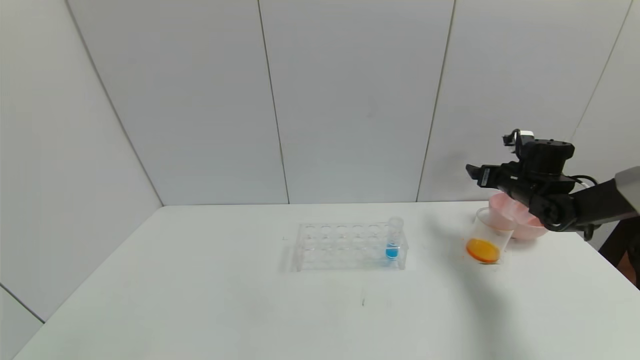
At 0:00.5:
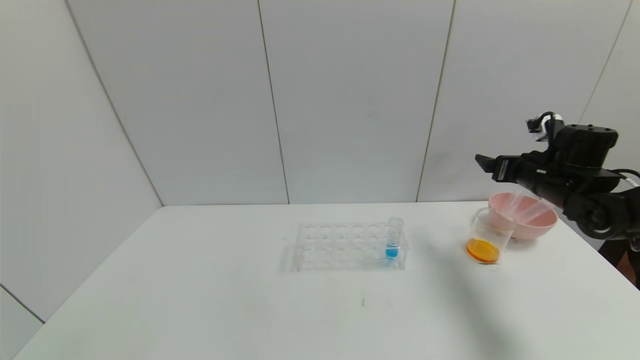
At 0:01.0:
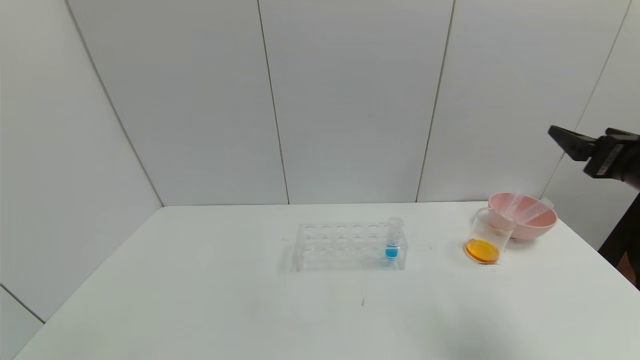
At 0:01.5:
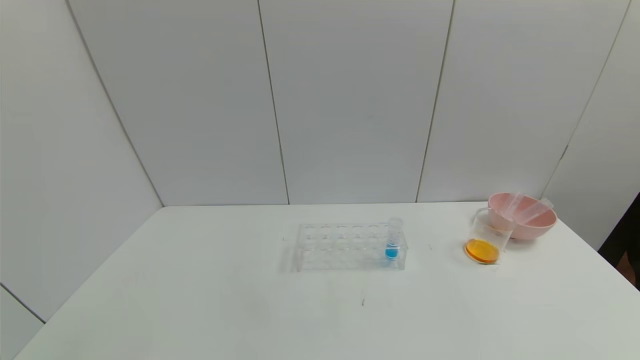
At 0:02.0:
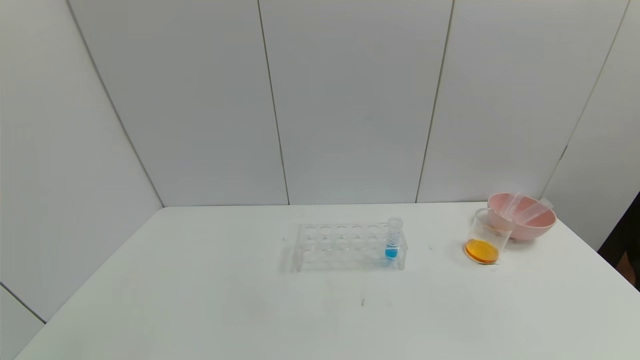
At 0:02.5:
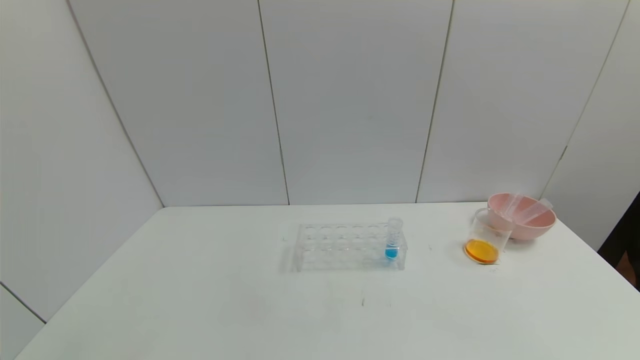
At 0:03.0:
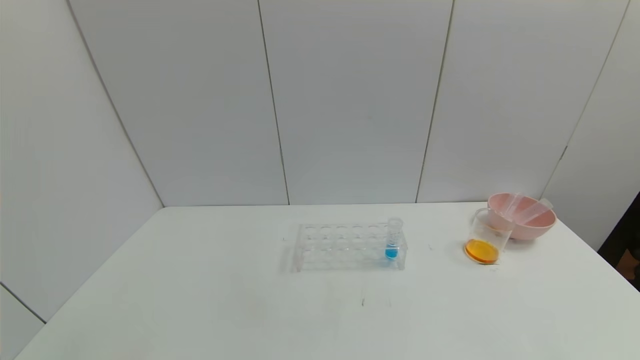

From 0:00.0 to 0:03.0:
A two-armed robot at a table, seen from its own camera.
Task of the whole recording: pick up the test tube with yellow pigment and the test tube with red pigment by grippers and pour them into the beaker.
From 0:00.0 to 0:01.5: The right gripper is displaced backward by roughly 35 cm.
